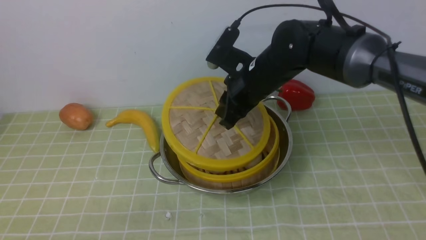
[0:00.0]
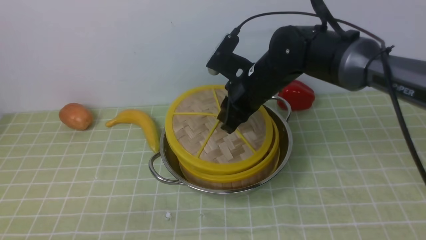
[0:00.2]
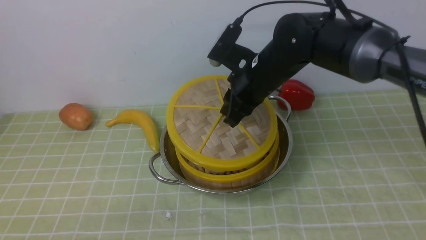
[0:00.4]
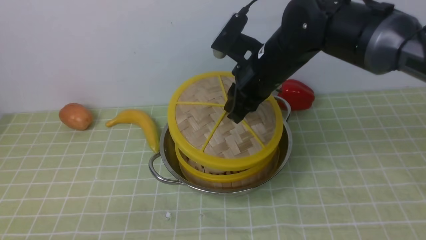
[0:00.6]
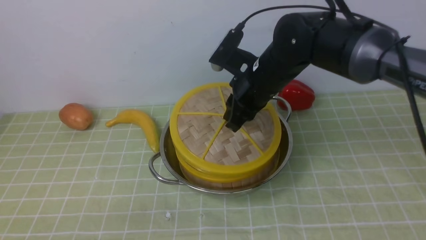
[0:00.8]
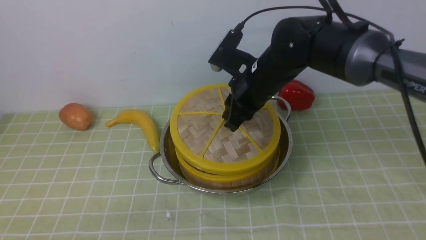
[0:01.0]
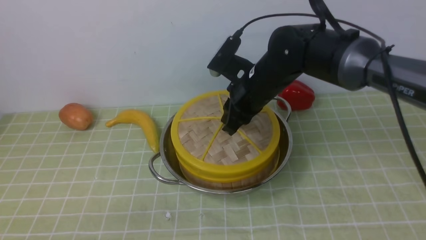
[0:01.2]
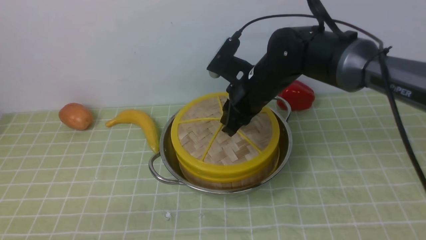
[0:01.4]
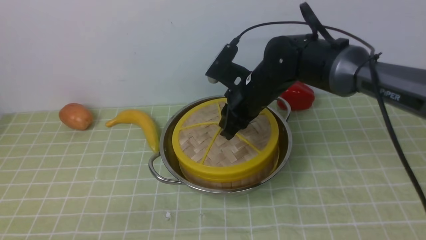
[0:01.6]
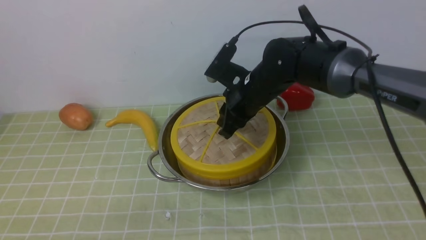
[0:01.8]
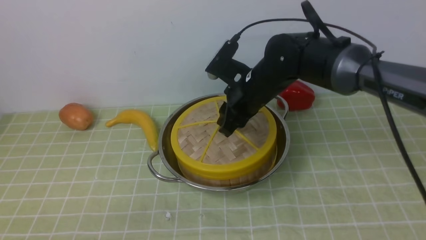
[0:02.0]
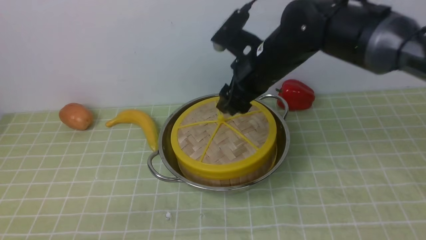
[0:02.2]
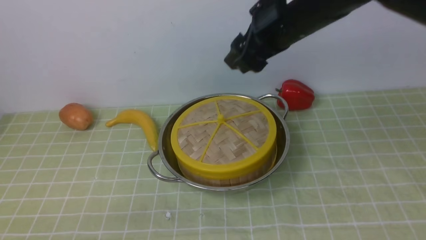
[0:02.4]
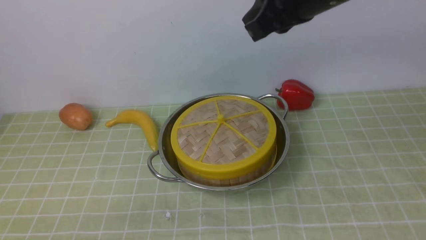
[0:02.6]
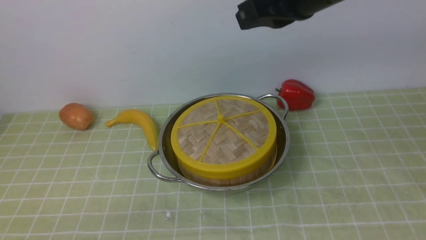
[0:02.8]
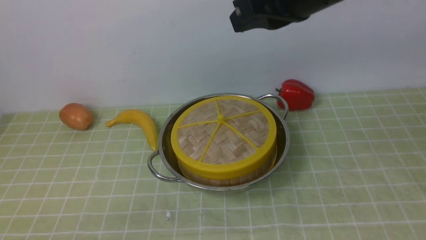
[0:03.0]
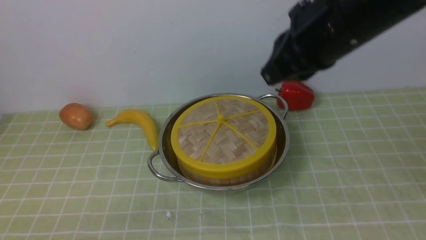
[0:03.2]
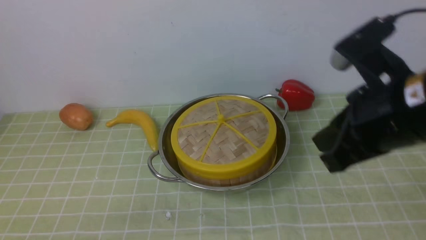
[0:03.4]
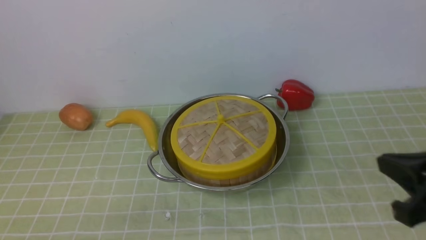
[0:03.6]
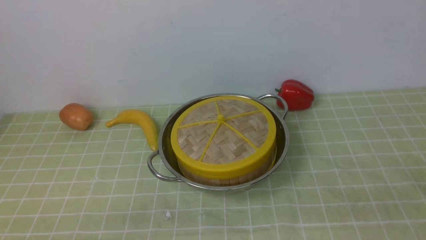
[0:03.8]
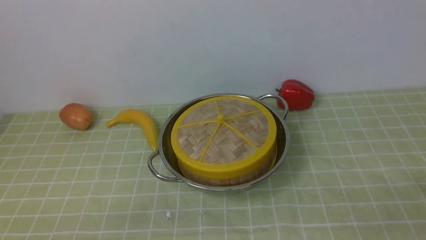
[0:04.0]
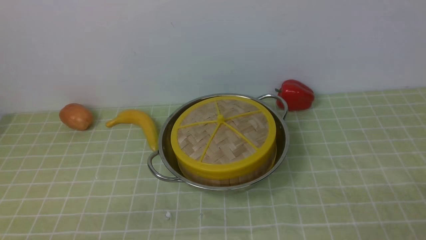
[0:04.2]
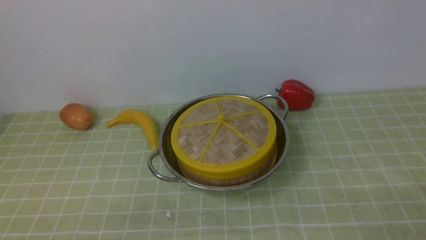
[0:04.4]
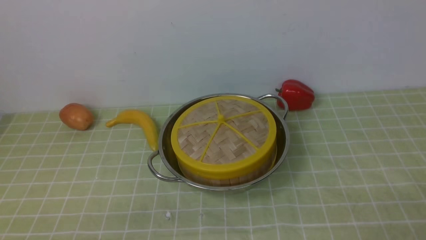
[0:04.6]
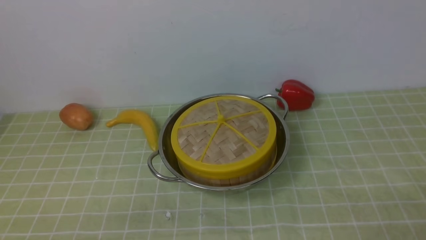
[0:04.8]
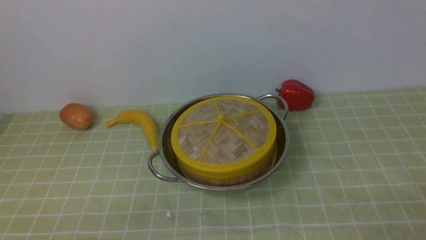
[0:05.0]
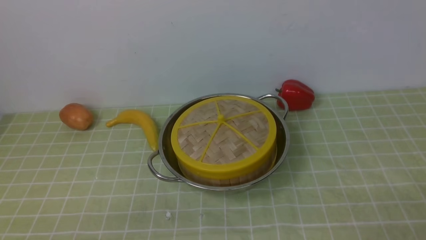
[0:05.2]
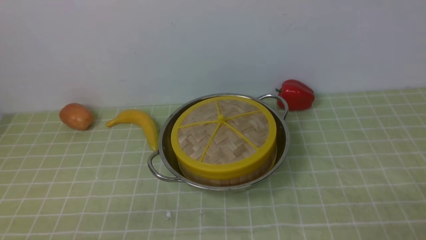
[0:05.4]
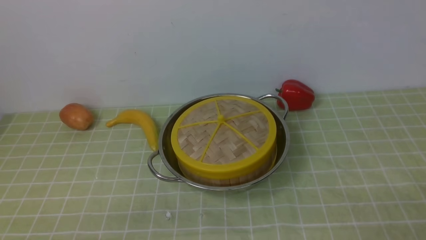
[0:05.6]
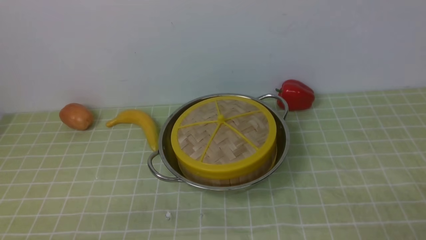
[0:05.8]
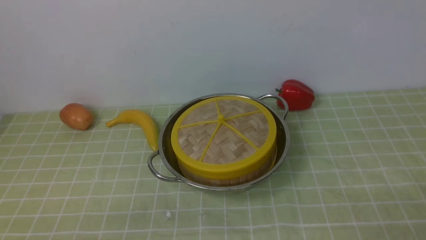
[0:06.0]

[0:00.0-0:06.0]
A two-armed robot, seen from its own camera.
Task of the whole recording: place the steamer in the pot on the green tablecloth, and put the lid on the steamer.
Step, 0:00.0 to 0:02.4: use the right arm to place the steamer lid on the steamer.
0:00.0 to 0:01.6: The grippers move only a little.
0:01.6 to 0:03.0: The right gripper is displaced upward and backward by approximately 25 cm, and closes up.
0:03.0 to 0:04.4: The right gripper moves downward, backward and to the right, roughly 40 cm, and opens its fingers.
